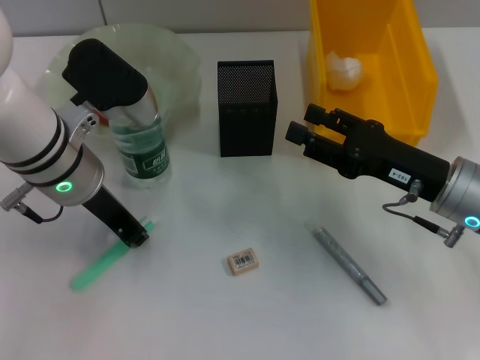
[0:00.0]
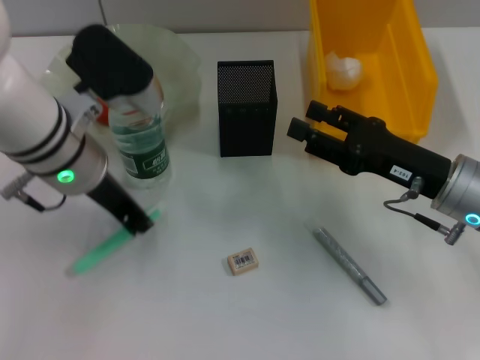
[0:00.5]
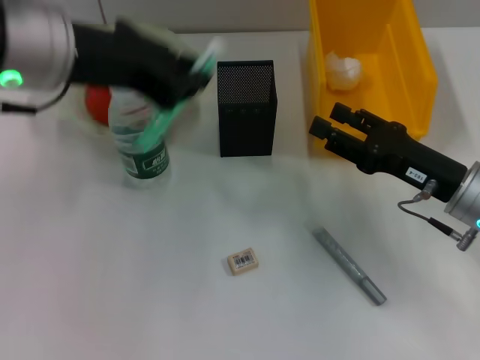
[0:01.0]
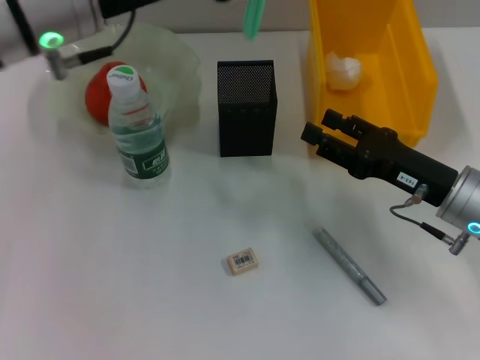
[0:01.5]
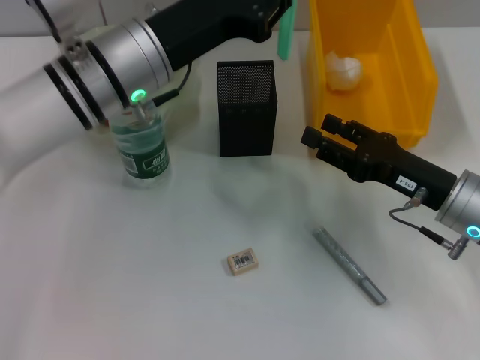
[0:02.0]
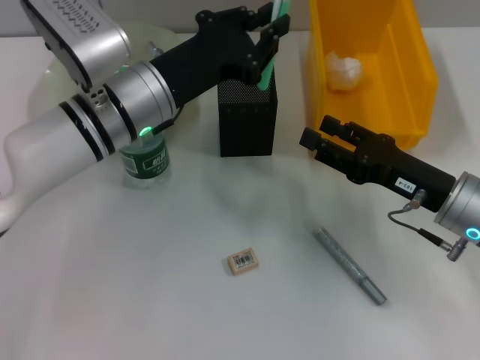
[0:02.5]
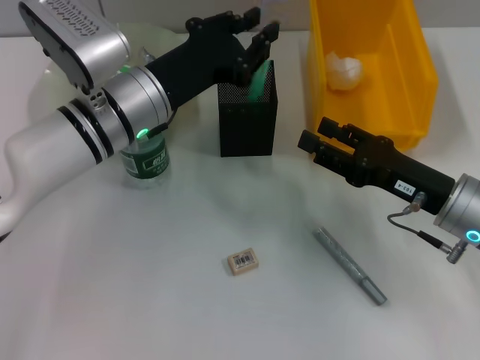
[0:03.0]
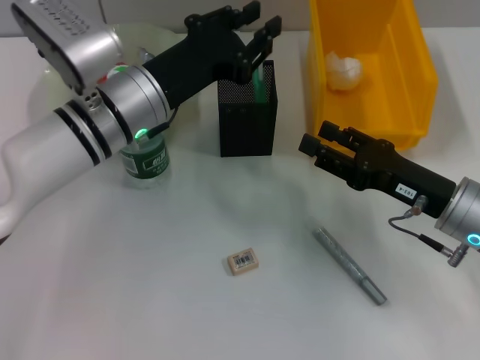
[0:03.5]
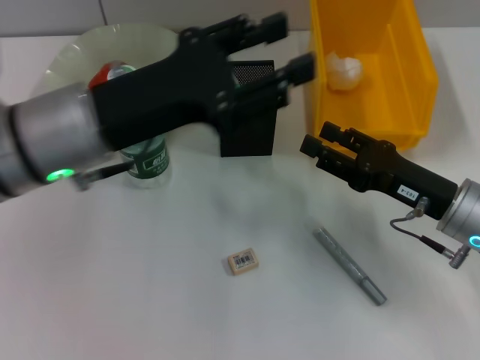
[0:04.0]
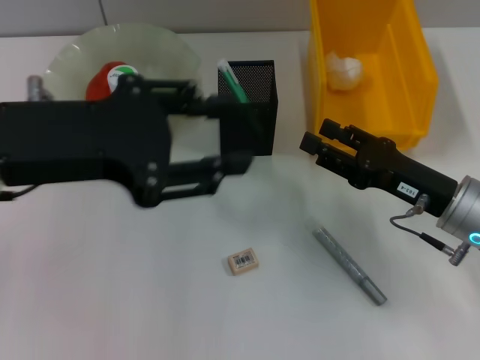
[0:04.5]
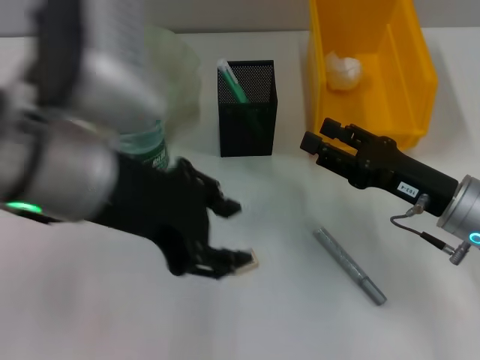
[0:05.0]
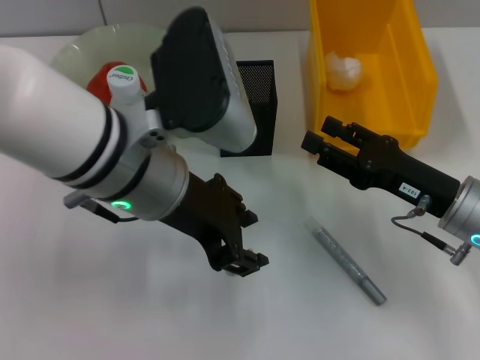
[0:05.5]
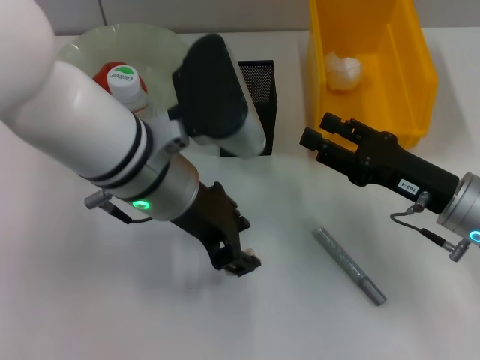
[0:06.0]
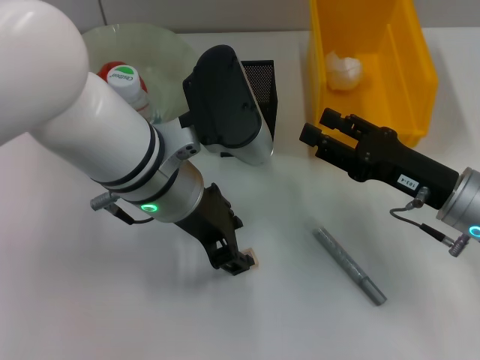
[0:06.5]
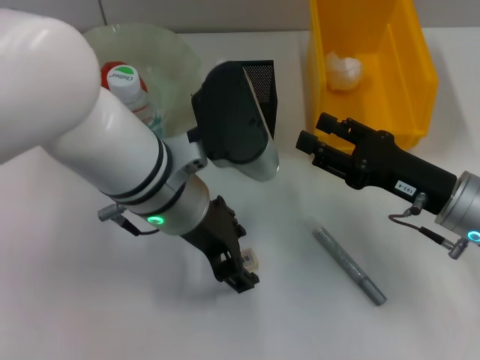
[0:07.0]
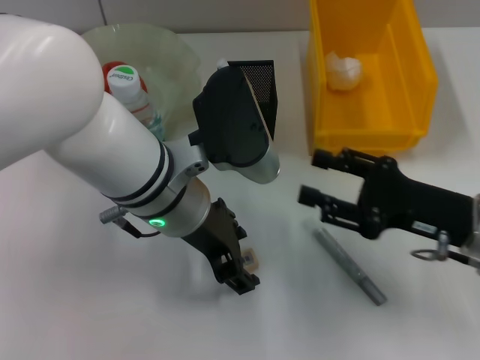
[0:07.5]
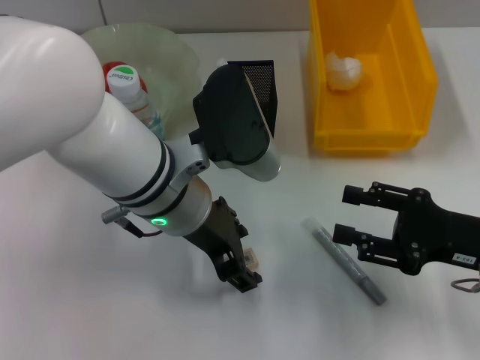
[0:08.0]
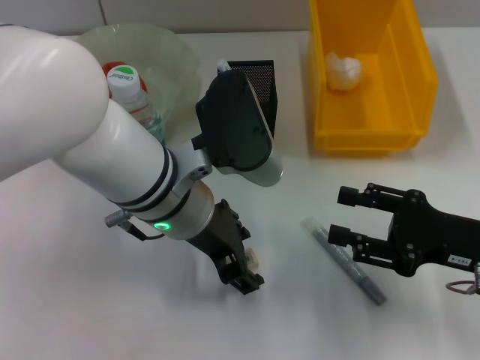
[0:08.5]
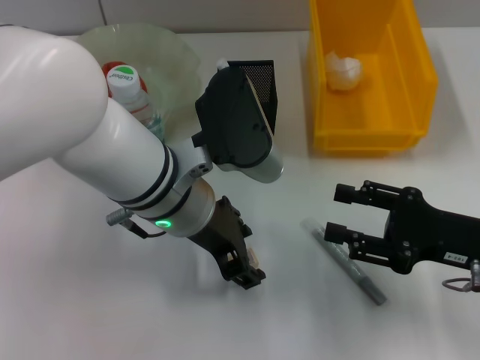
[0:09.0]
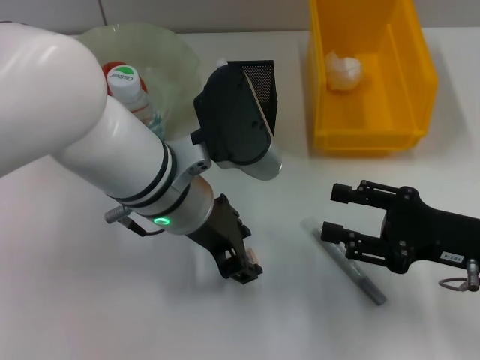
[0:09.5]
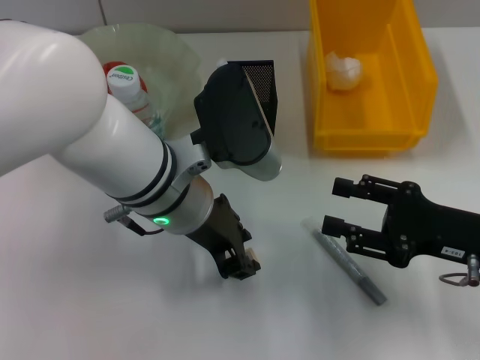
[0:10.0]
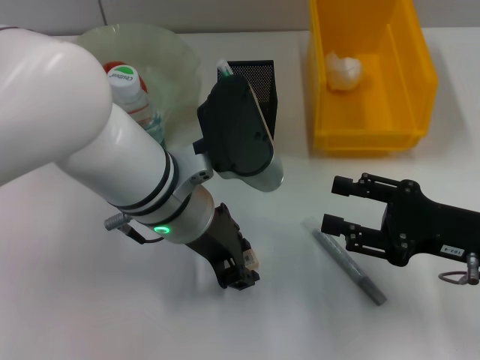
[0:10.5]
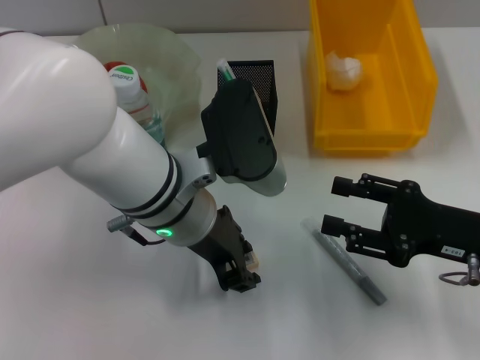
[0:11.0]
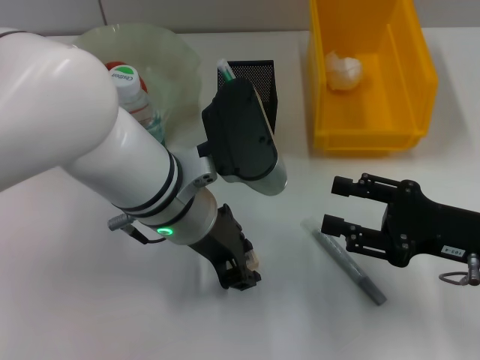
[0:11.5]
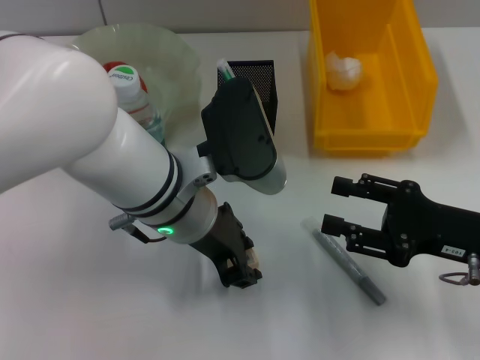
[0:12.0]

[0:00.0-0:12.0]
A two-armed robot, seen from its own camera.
Step, 0:00.5 to 0:03.0: Place the blue utility knife into the pen holder with the left hand.
0:00.0 to 0:02.0: The left gripper goes upward and returns, approximately 15 cm each way.
0:02.0 to 0:04.0: The left gripper goes about 5 cm backward.
0:04.0 to 0:06.0: The left gripper travels to the right by some 5 cm.
0:06.0 to 0:08.0: The right gripper ends up approximately 5 cm from where it was.
0:08.0 to 0:10.0: The left gripper closes its fingers.
0:10.0 to 0:12.0: The two grippers keep their place.

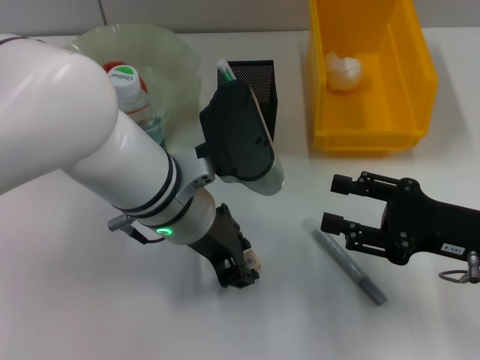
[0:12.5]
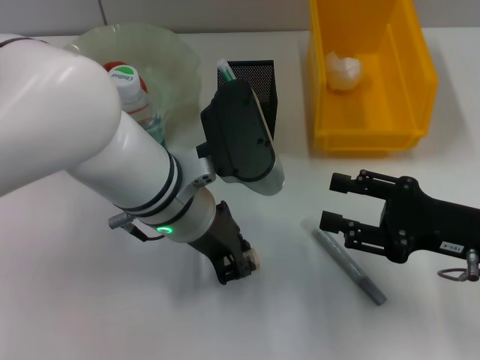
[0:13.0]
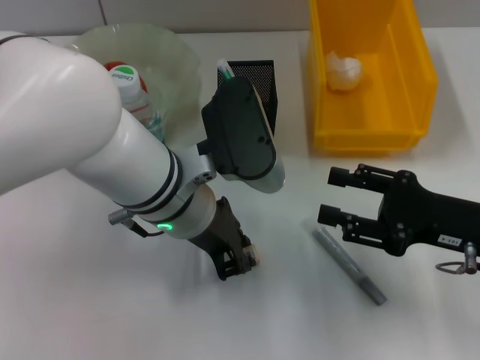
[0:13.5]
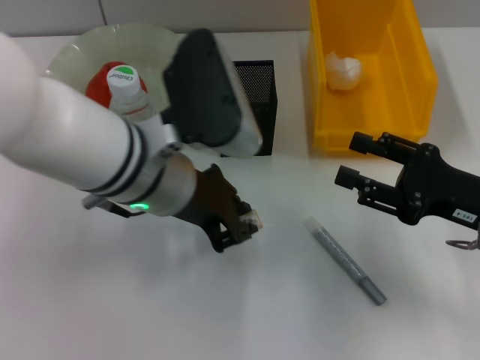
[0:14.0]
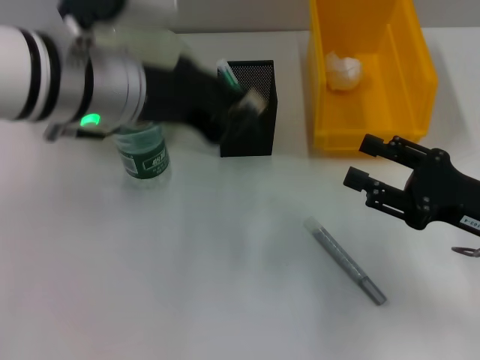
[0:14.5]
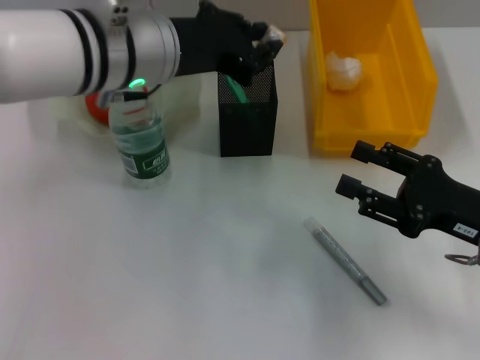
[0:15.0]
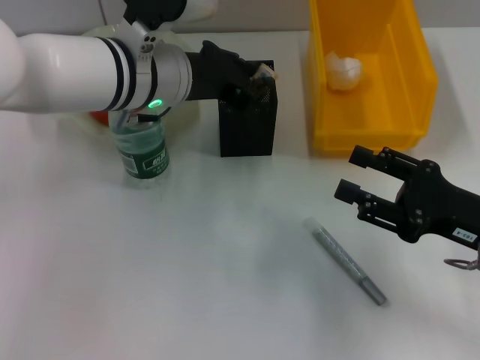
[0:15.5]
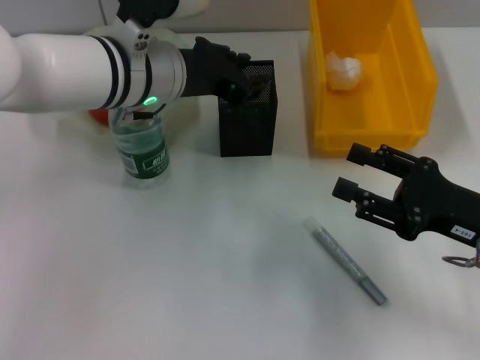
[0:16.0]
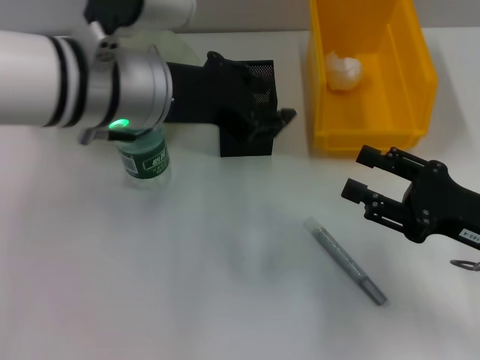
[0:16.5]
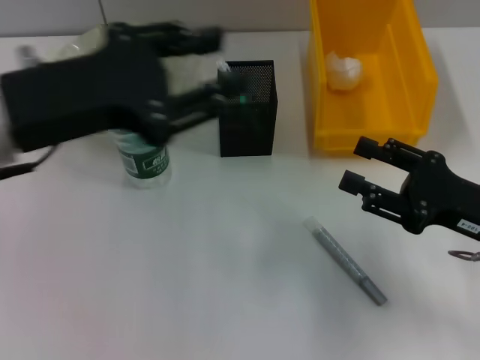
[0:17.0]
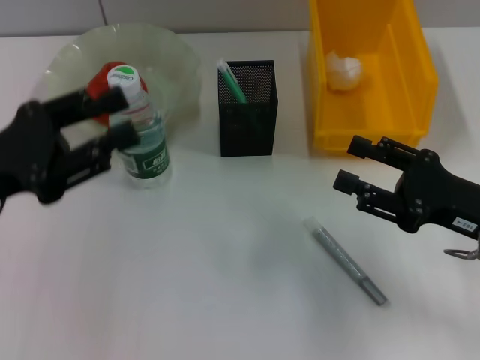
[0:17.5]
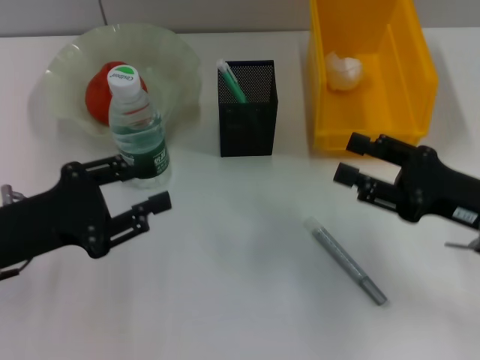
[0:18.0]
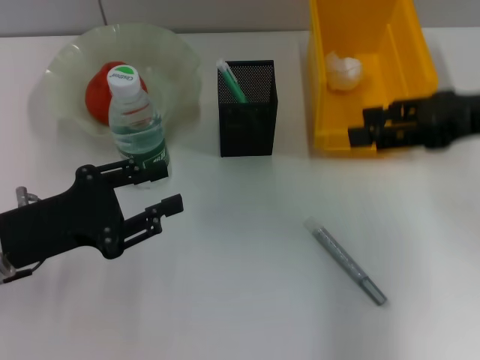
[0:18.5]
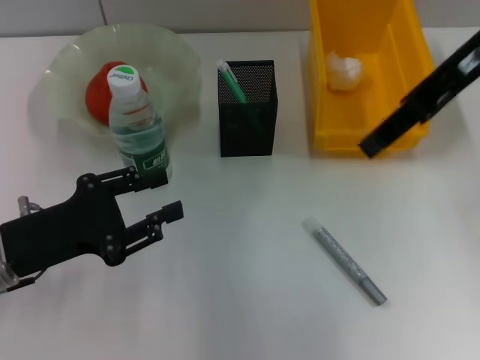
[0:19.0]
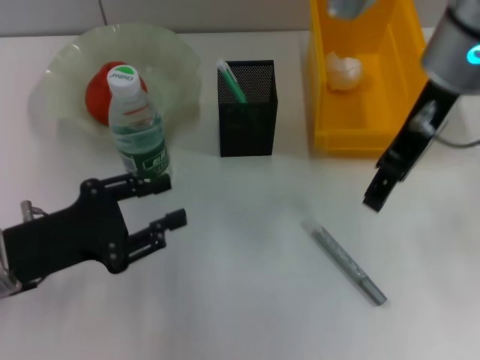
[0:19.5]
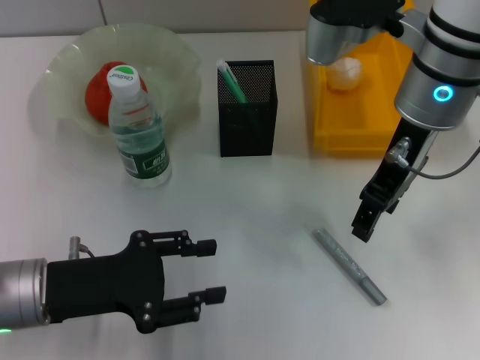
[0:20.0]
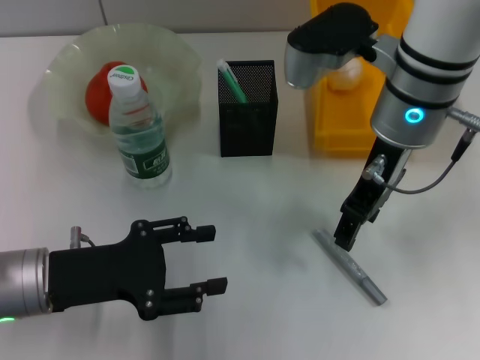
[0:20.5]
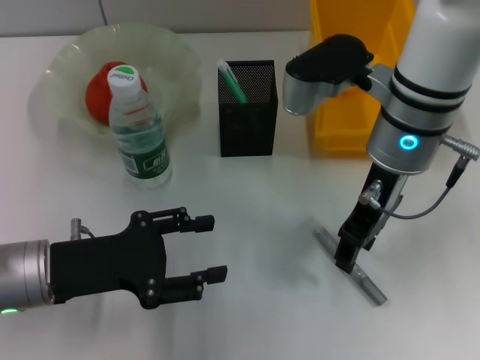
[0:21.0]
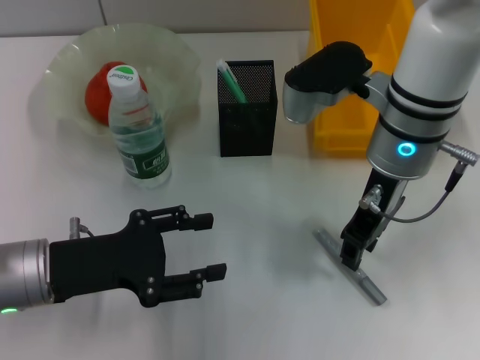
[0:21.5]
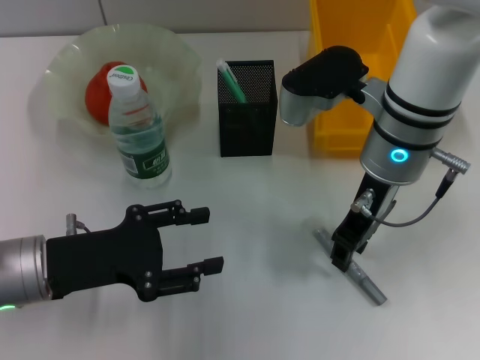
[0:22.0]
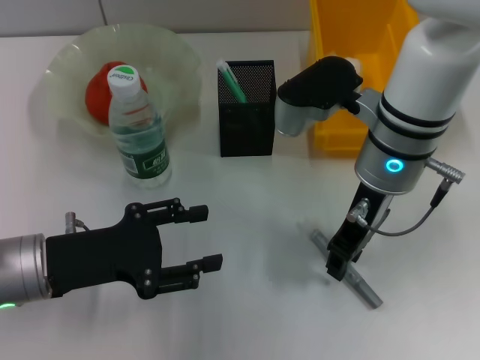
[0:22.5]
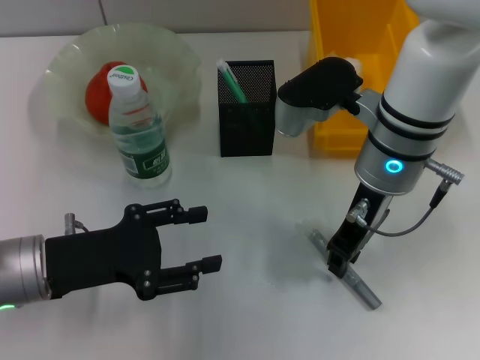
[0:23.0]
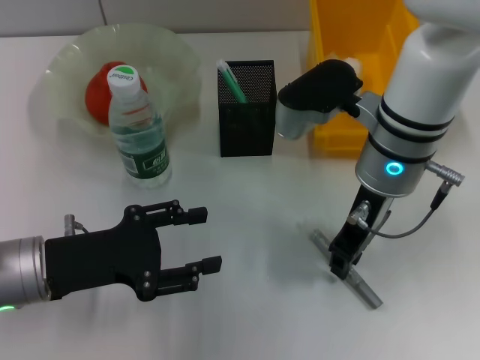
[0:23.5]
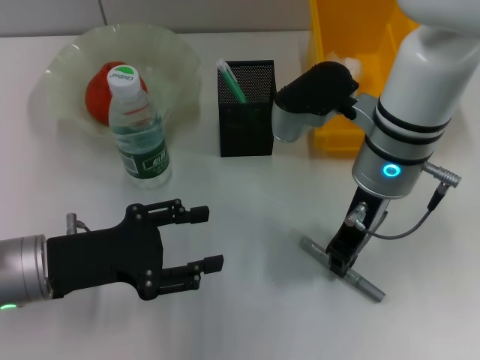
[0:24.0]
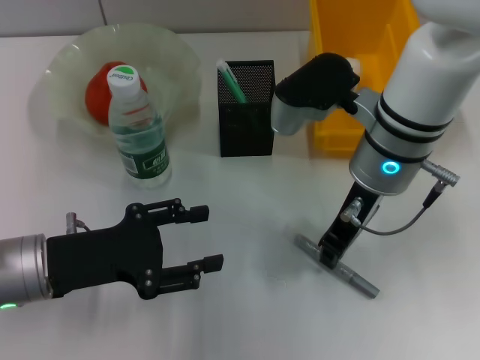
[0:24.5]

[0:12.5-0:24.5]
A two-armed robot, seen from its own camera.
Step, 0:13.0 to 0:16.5: Place the eraser into the pen holder with the left hand.
0:12.5 to 0:14.5: The left gripper goes about 10 cm upward and to the left.
0:14.5 to 0:16.5: The left gripper opens up.
0:16.5 to 0:18.5: The left gripper is displaced to the left, downward and backward by roughly 20 cm; the right gripper moves upward and forward, approximately 15 cm.
0:18.5 to 0:20.5: The right gripper shifts approximately 15 cm to the left.
0:22.5 to 0:24.5: The right gripper closes its fingers.

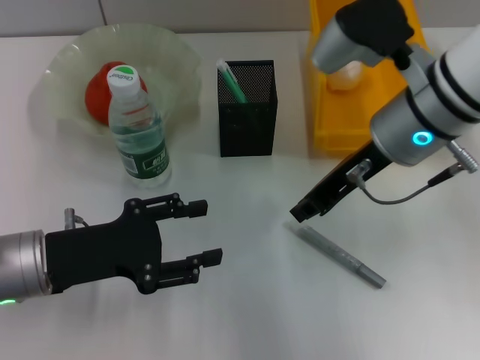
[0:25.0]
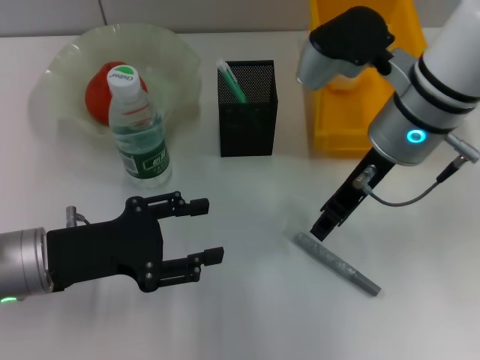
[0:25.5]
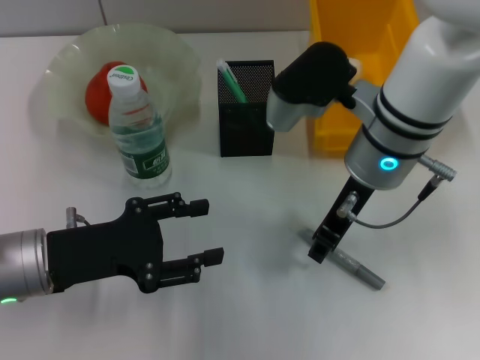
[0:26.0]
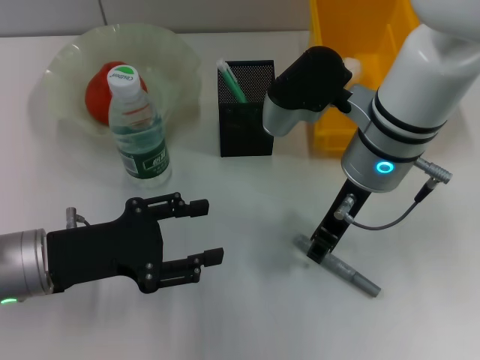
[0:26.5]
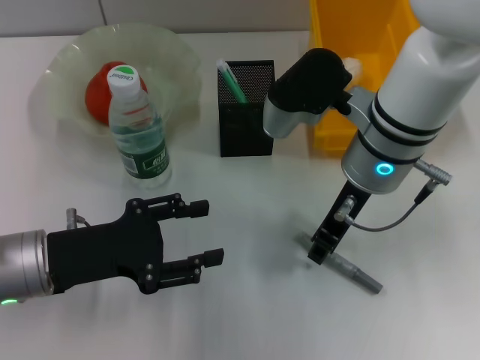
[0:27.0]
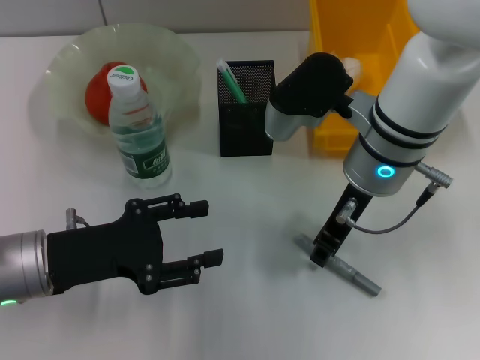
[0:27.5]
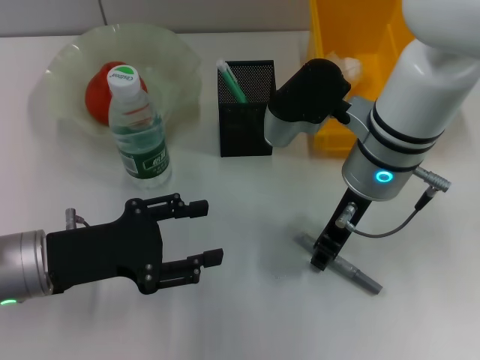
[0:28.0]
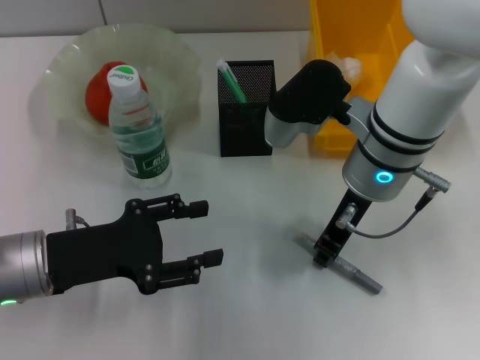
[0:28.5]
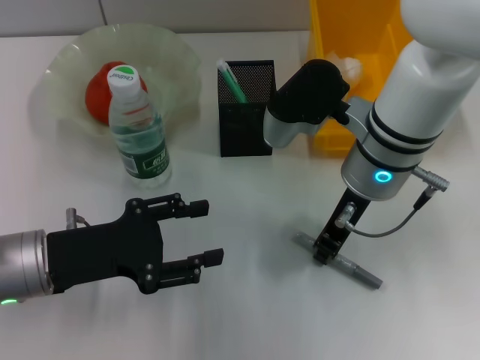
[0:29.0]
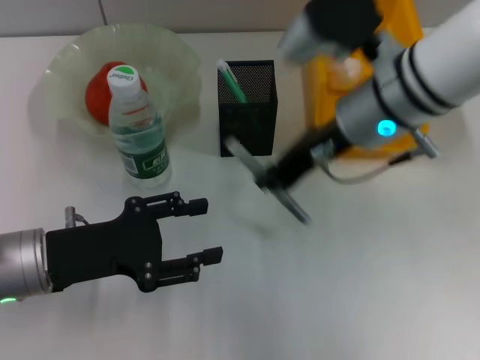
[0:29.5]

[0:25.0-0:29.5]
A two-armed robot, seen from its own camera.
Step, 0:25.0 to 0:29.0: Grab the gray glue with the right hand.
0:25.0 to 0:27.0: The grippers make only small movements.
